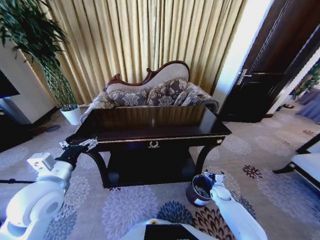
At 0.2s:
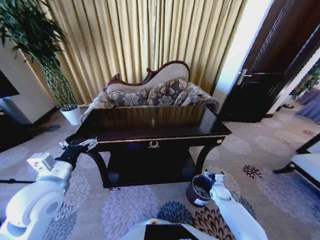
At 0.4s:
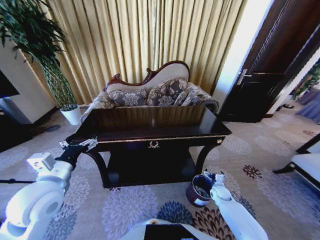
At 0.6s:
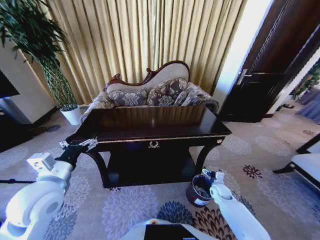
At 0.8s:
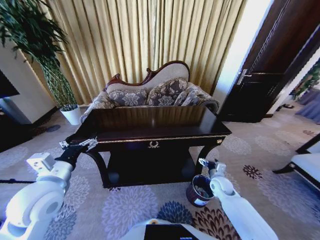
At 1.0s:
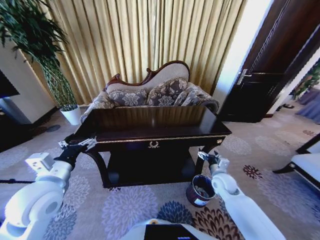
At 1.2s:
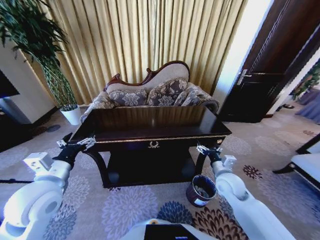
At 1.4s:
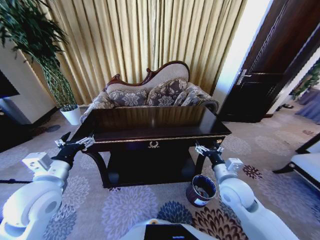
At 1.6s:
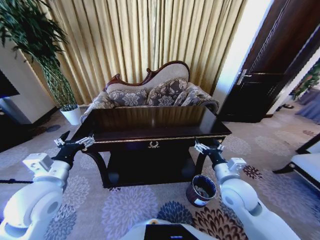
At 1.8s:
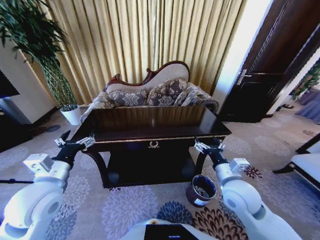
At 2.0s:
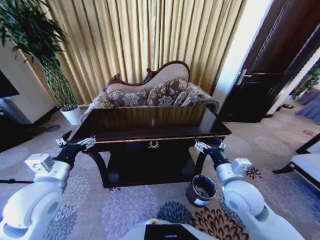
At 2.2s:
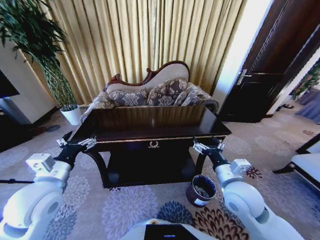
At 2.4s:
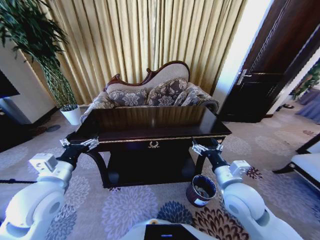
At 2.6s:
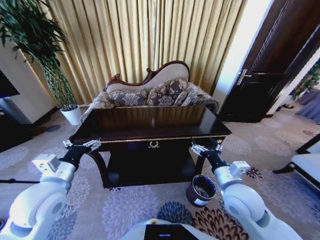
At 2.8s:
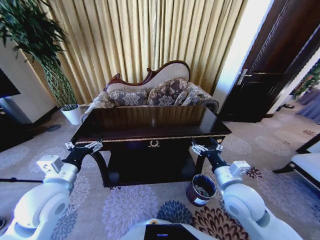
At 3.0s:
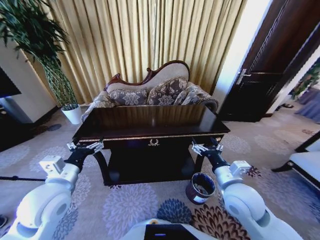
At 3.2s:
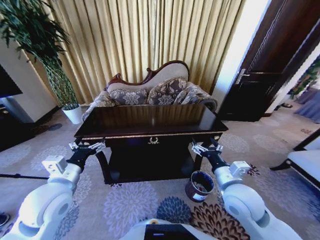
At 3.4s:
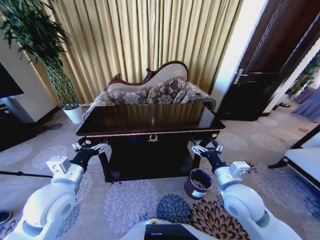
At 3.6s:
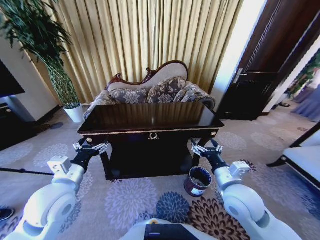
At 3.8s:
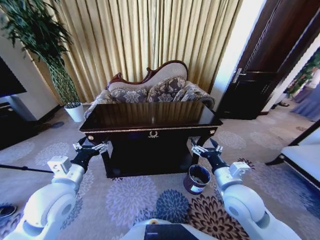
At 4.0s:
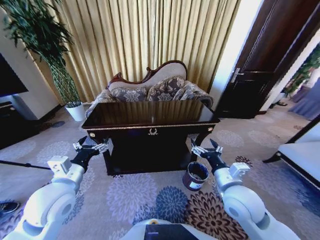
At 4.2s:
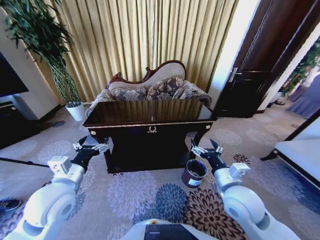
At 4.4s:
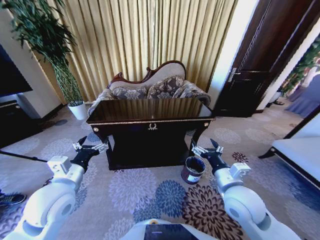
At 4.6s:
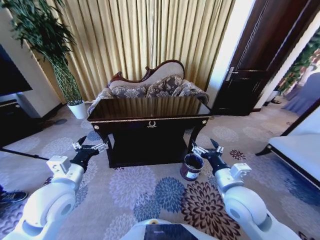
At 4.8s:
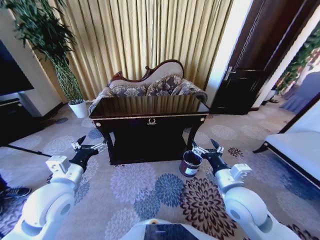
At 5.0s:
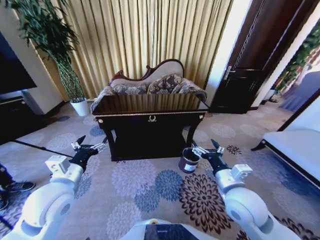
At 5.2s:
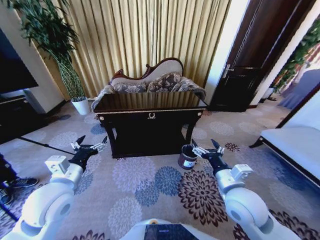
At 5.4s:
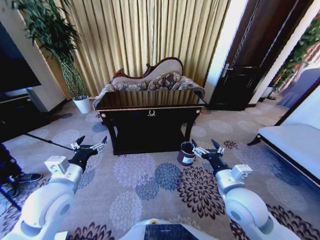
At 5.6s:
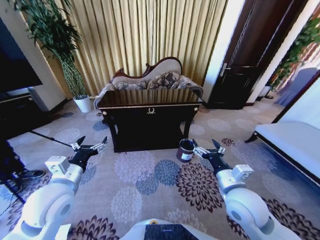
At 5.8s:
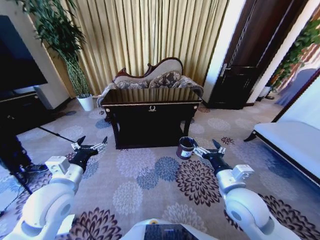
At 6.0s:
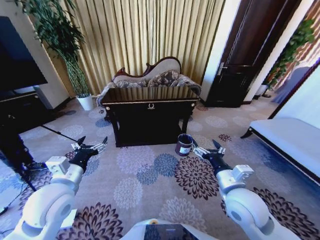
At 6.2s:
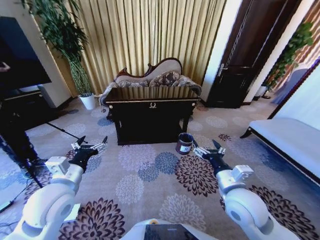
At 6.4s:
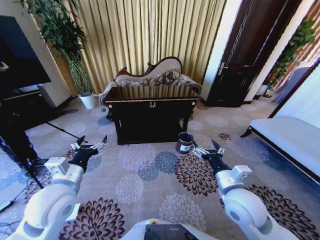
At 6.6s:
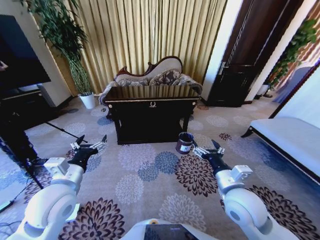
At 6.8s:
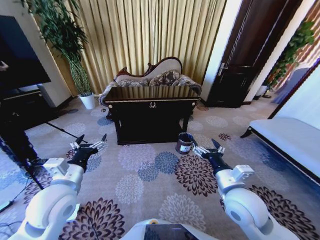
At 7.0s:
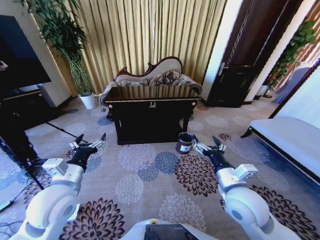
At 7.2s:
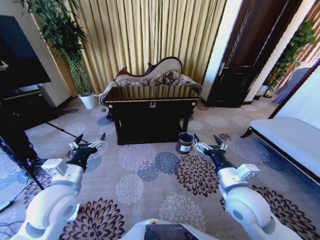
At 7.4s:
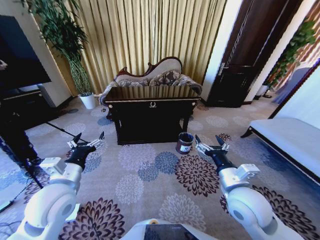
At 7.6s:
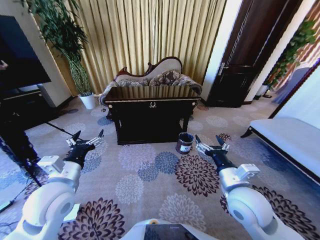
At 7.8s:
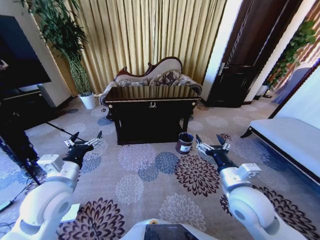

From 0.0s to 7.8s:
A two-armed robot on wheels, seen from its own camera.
Task of the whole recording: Move to the front of the table and place the trash on the table into the trash bin.
From 0.0s to 1.6s: The right gripper is displaced upward by roughly 30 cm.
From 6.2s to 7.8s: The grippers move only a little.

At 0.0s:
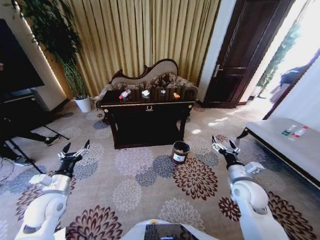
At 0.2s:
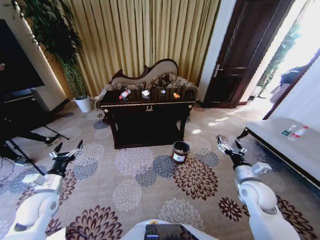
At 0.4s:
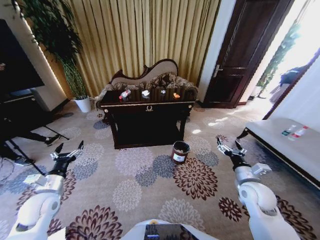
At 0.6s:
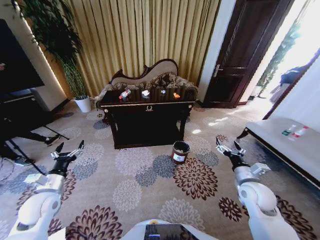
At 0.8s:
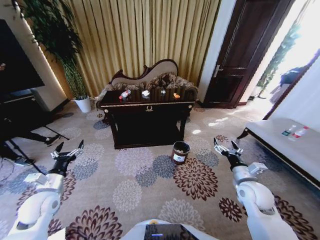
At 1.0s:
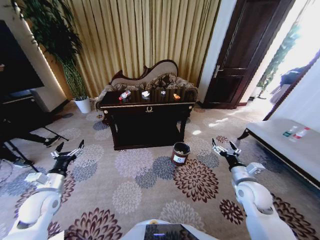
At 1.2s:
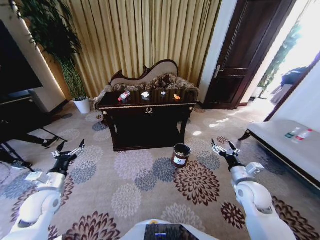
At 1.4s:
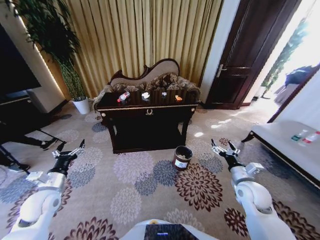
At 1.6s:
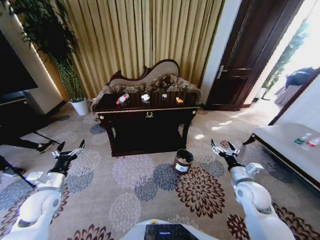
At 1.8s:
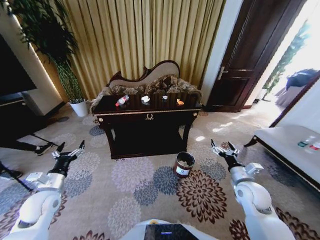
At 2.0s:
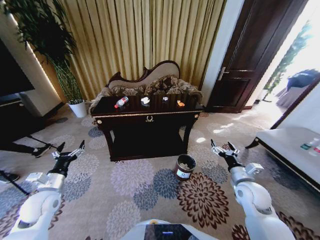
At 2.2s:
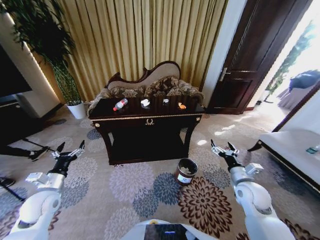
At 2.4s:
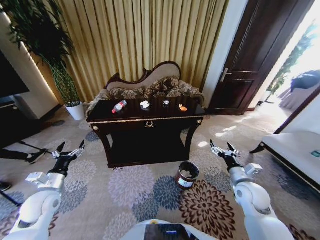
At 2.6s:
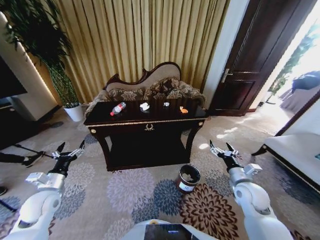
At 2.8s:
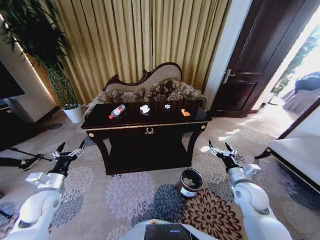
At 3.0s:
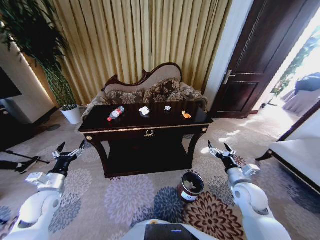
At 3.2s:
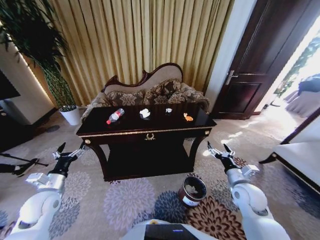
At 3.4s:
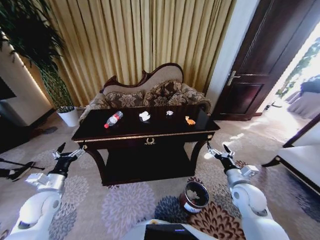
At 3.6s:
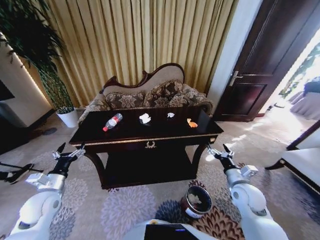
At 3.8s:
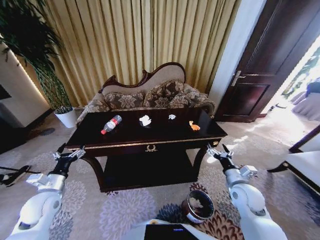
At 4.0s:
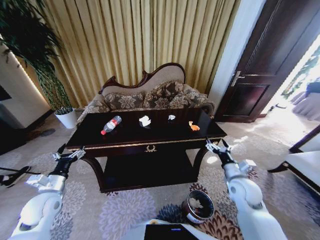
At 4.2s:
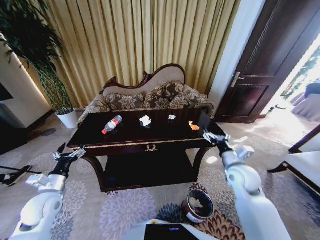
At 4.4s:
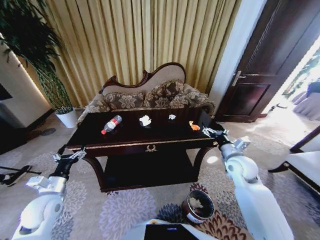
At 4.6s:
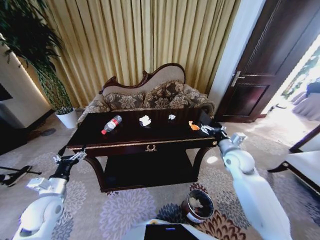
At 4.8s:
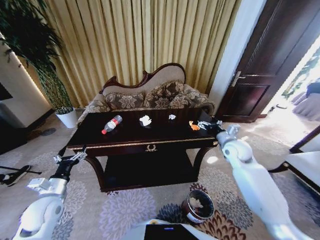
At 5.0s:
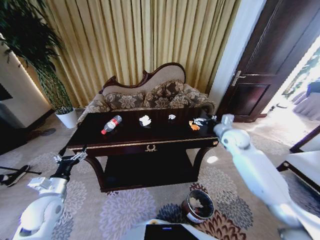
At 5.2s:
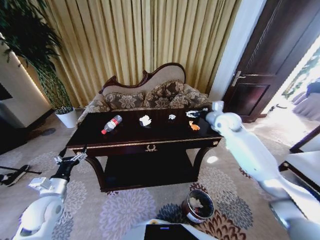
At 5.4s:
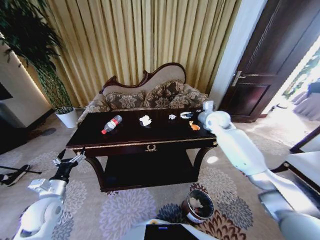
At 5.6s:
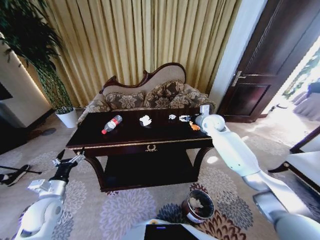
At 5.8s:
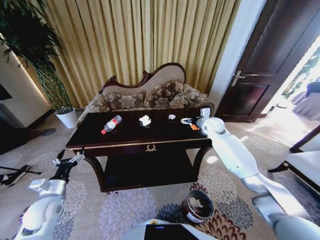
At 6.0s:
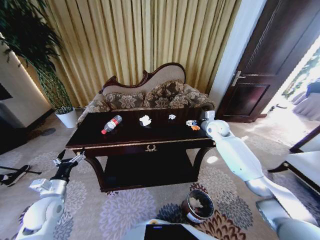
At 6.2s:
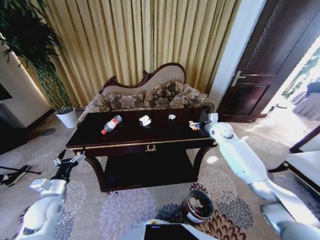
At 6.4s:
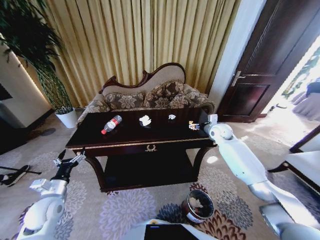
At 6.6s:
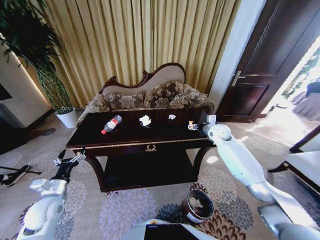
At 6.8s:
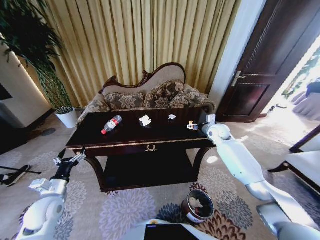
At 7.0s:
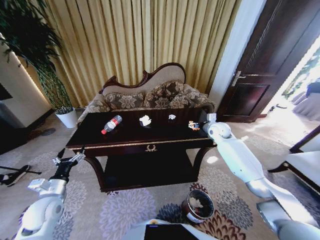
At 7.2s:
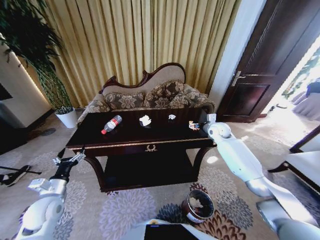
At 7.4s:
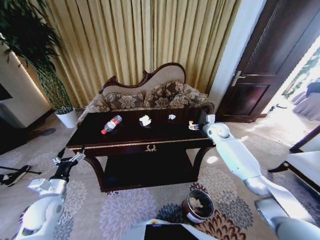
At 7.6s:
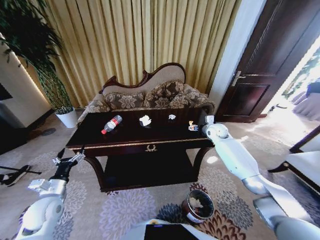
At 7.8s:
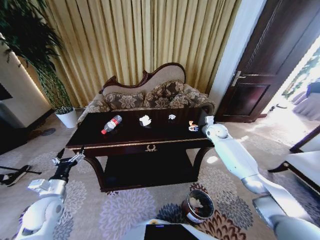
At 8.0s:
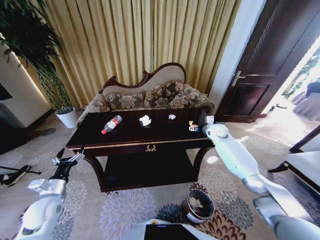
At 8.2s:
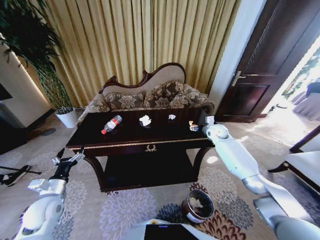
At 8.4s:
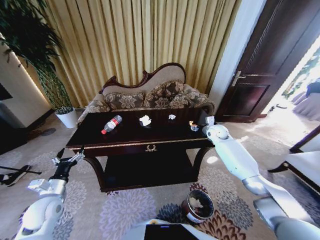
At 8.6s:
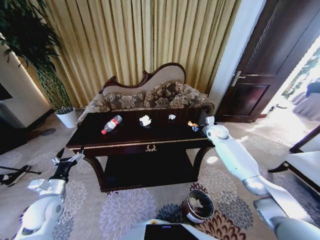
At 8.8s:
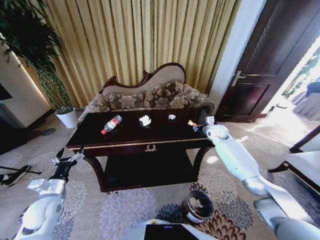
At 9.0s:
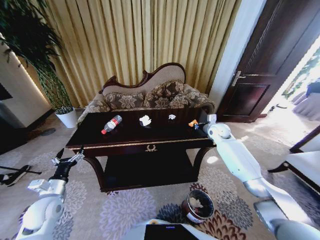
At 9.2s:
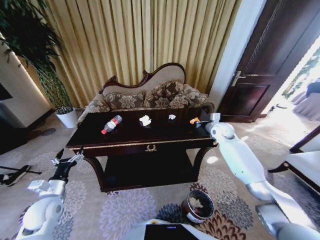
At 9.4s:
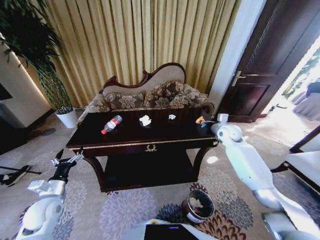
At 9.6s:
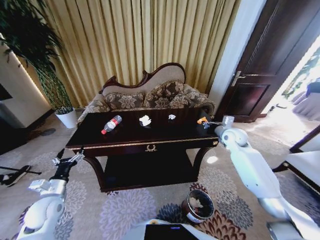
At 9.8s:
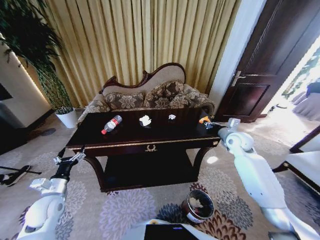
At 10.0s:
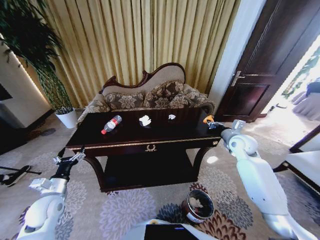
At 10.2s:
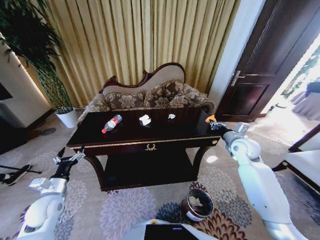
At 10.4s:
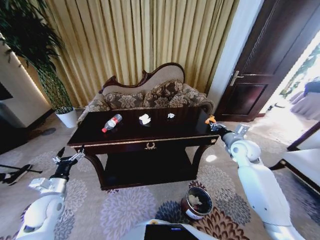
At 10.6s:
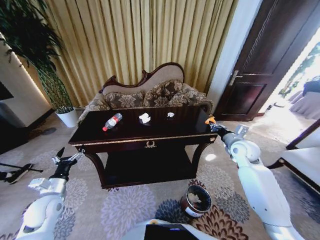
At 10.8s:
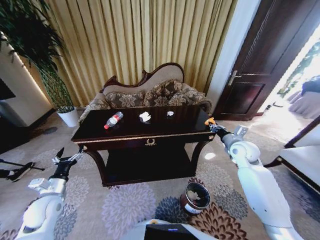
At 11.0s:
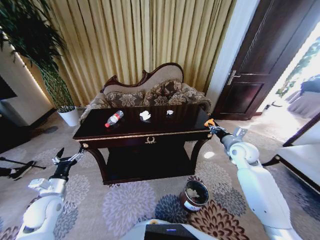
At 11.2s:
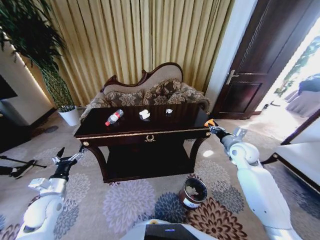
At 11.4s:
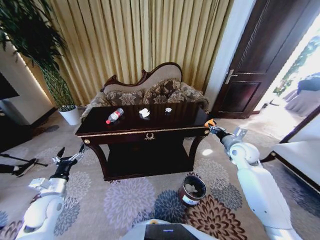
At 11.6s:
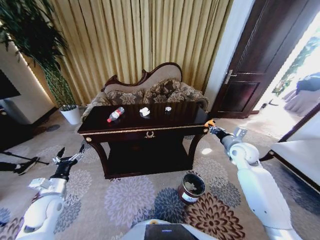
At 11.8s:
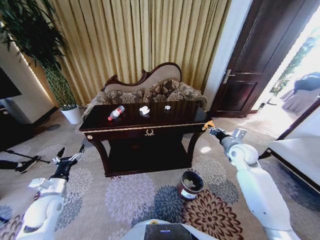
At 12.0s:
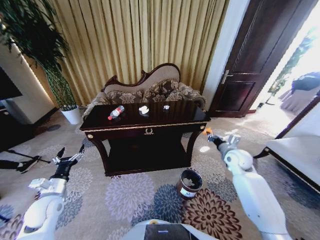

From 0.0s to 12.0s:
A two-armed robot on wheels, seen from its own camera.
Task of the whole recording: Move to the front of the table and place the trash on the table into the trash bin.
From 3.0s to 4.4s: The right gripper goes roughly 10 cm forward and upward.
From 4.4s to 6.0s: The right gripper is displaced forward by some 20 cm.
From 6.0s to 7.6s: There are only small adjustments of the grippers.
From 7.6s to 9.0s: The right gripper closes.
From 9.0s to 10.4s: The right gripper shifts some 15 cm backward.
From 10.4s to 12.0s: The right gripper moves downward, approximately 5 cm.

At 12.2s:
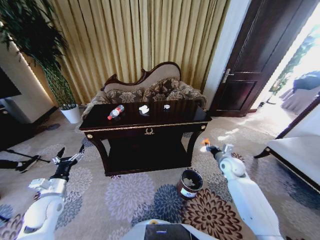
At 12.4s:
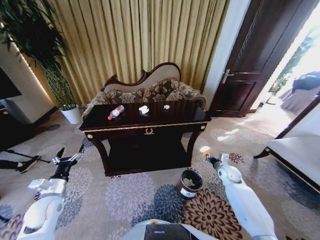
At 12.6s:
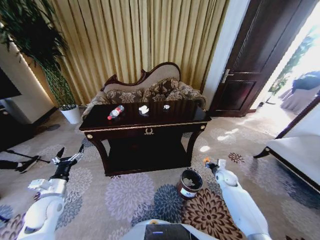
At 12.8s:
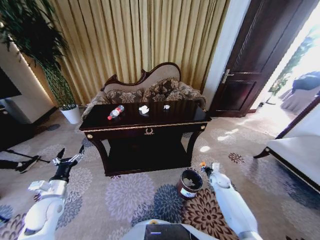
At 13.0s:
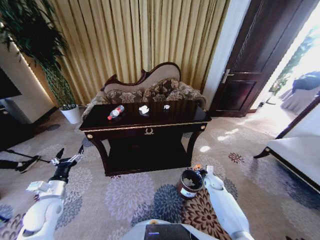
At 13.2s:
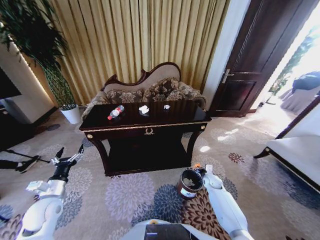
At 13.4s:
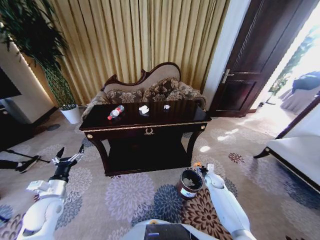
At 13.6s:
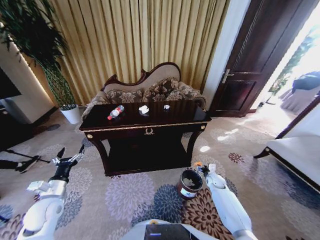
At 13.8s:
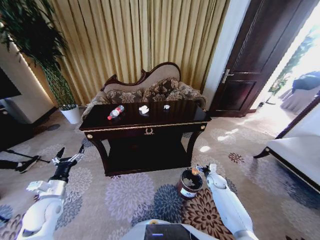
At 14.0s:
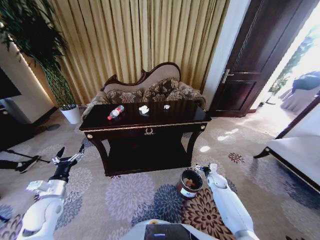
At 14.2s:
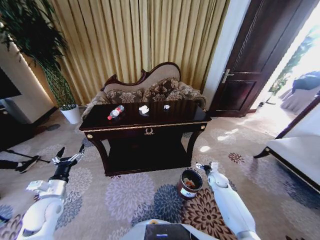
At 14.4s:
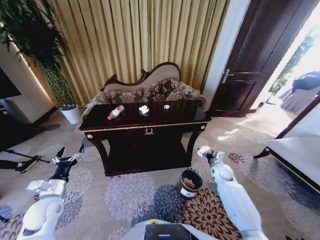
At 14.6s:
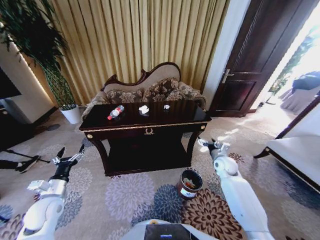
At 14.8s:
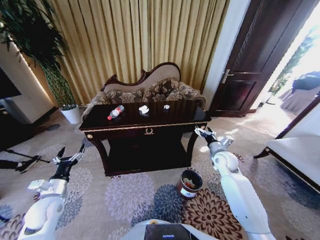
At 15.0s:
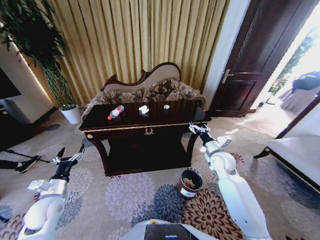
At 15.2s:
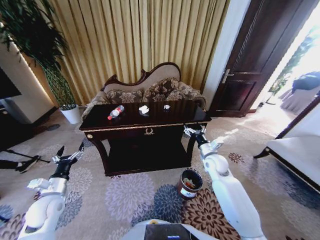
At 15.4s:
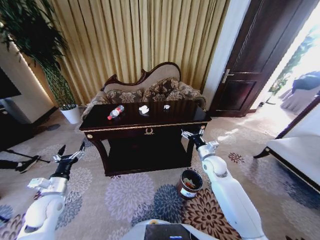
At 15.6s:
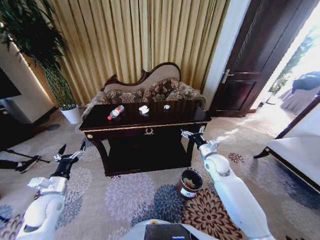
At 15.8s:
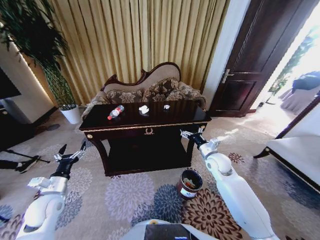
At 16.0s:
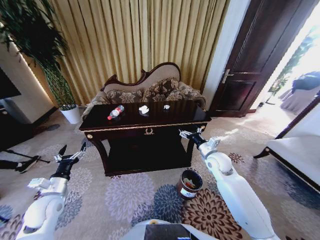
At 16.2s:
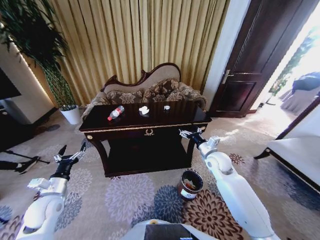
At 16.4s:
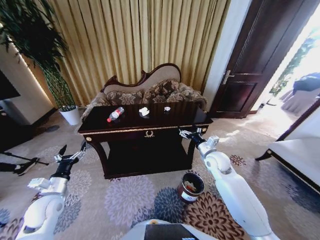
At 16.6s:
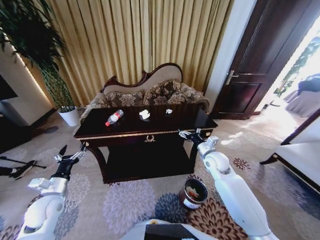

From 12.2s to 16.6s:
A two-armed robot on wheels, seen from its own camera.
Task of the whole recording: Move to the front of the table and place the trash on the table into the trash bin.
From 12.2s to 13.6s: The right gripper travels downward by some 15 cm, and opens up.
From 13.6s to 15.2s: The right gripper is displaced upward and to the left by about 20 cm, and opens.
